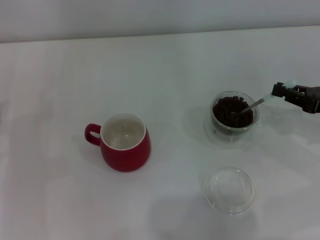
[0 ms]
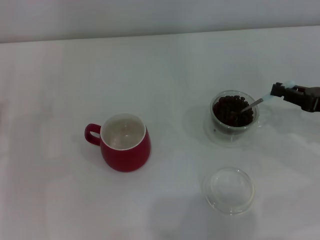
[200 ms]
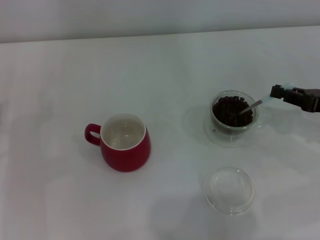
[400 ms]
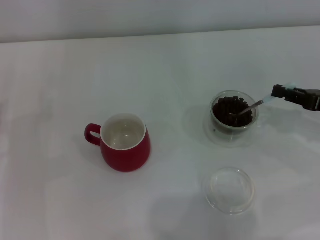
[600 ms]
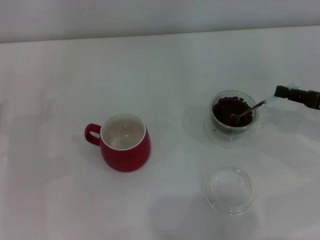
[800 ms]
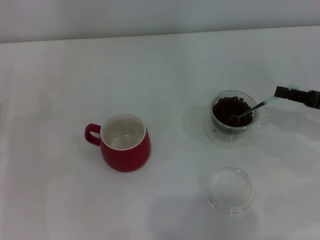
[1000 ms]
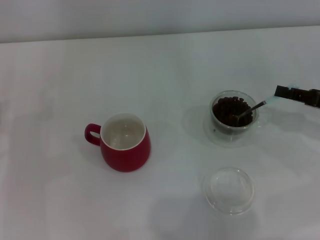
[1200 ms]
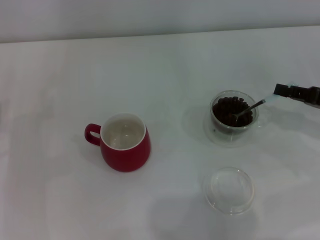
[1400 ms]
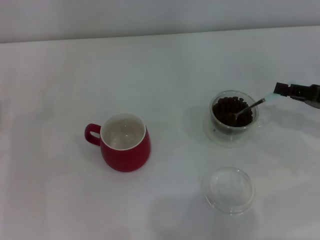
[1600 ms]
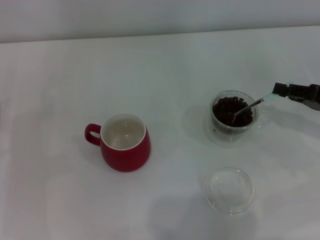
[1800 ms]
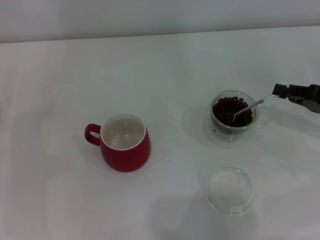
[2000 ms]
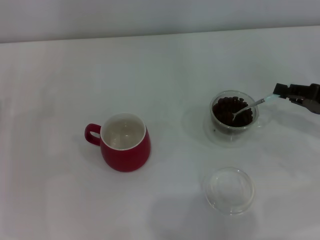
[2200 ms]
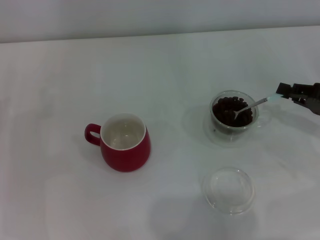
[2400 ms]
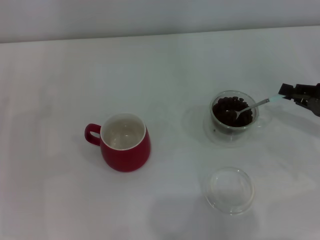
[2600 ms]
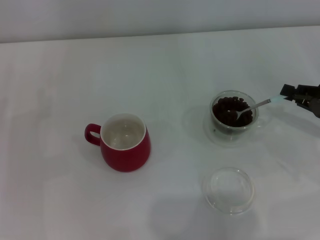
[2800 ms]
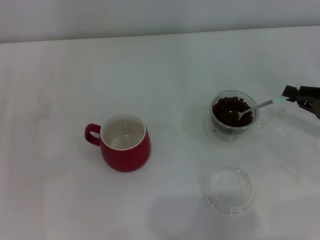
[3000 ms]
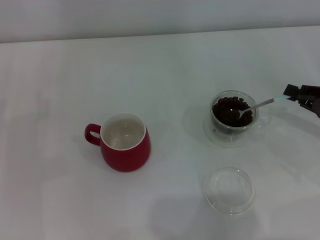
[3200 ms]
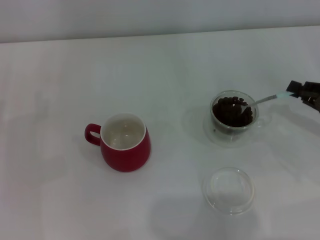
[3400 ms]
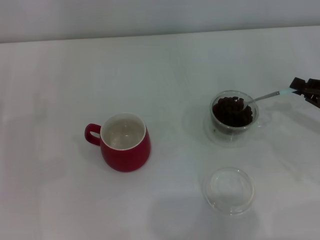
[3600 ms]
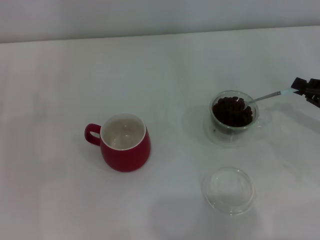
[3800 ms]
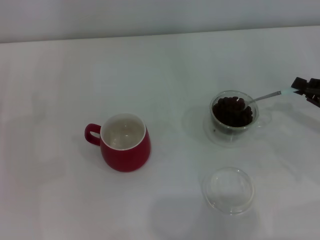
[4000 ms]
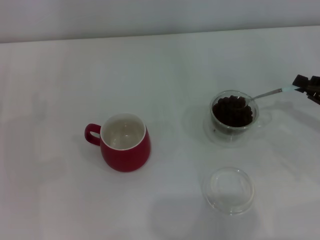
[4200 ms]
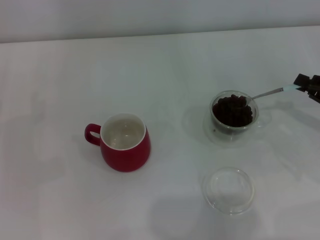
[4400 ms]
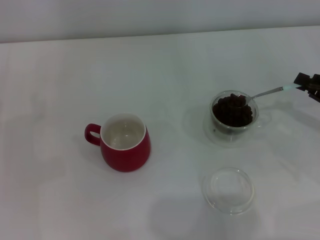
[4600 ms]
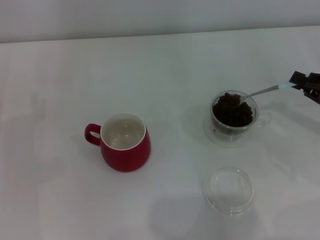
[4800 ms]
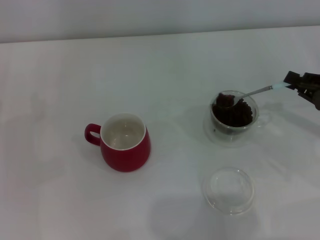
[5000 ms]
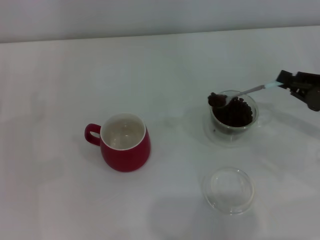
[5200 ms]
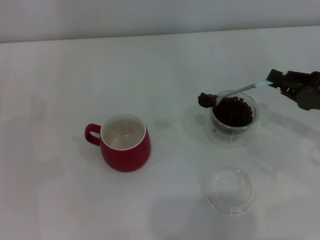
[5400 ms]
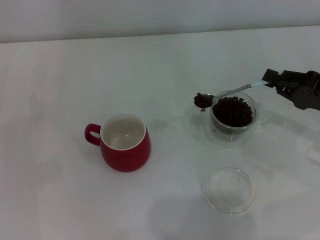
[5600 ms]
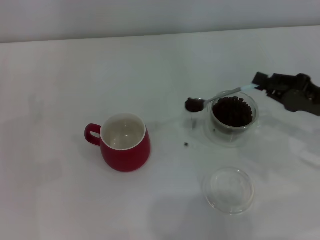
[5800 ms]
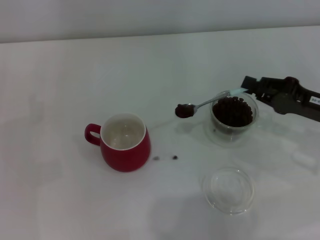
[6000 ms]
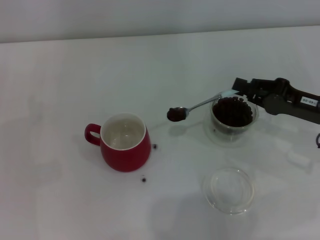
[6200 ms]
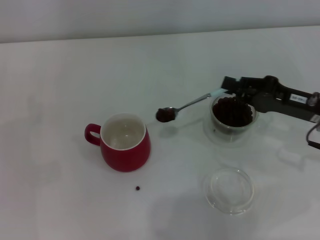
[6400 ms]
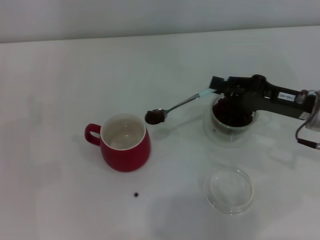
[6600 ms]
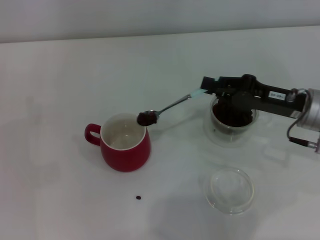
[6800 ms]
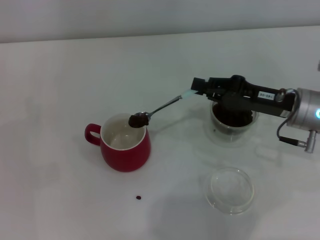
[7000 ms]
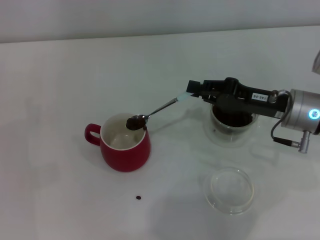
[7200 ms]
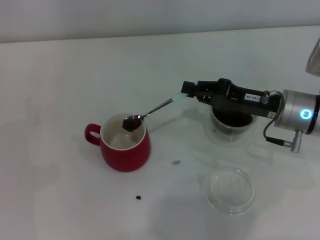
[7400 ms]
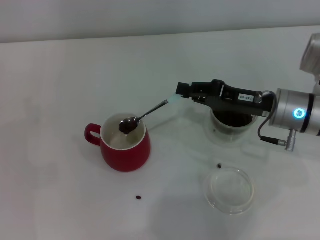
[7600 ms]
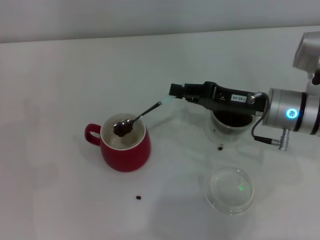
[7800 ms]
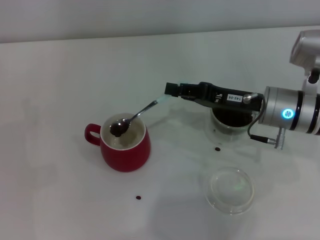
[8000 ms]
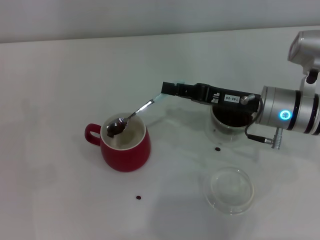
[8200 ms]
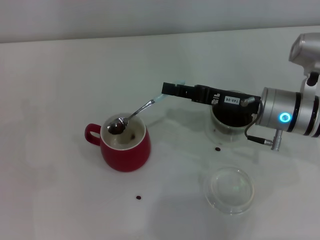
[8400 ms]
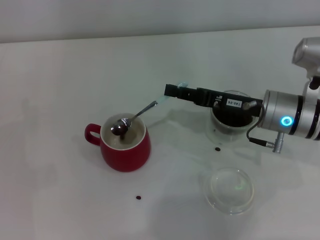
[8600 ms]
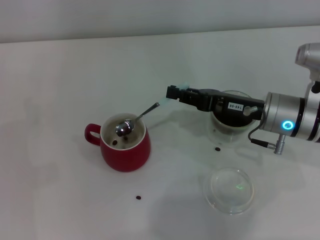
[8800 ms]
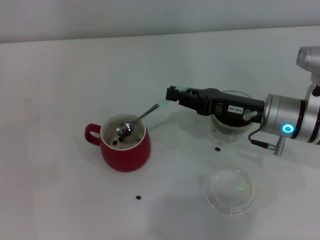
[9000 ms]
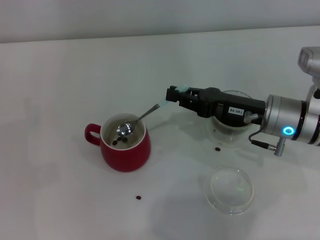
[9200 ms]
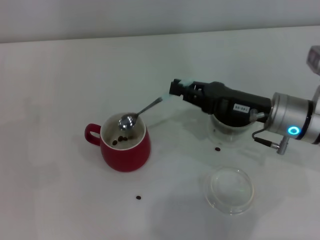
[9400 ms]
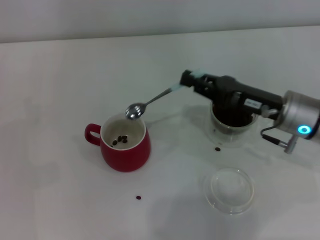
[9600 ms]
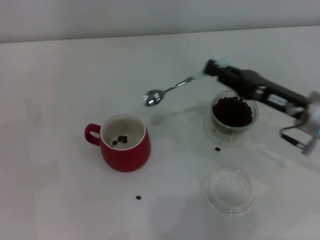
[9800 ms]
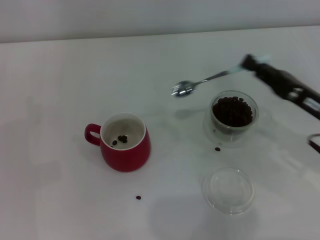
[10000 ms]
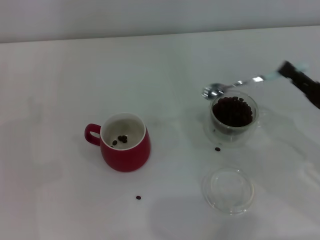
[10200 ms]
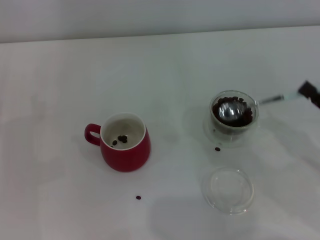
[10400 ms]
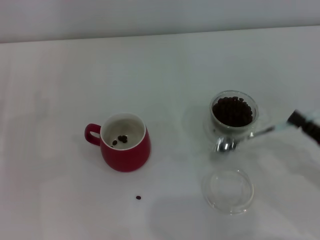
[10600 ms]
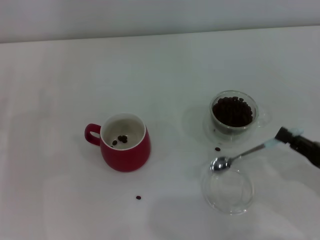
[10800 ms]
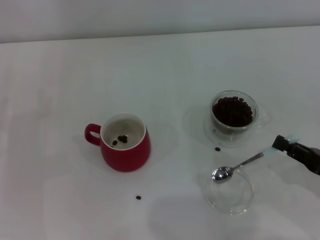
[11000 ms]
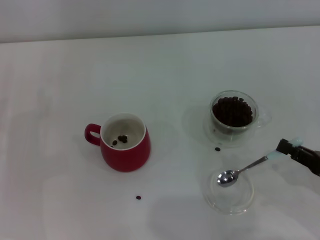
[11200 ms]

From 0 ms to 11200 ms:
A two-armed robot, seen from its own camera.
Task of the whole recording: Use a blue spoon to take out the coffee beans from the glass and pour them into the red cup.
Step, from 0 ms to 9600 ms: Scoop a spoonful of beans into the cup with the right gripper.
From 3200 ms to 4800 ms: There are only small adjustments of the grippers.
From 4800 ms to 6400 ms: The right gripper is displaced to the left by some 10 cm.
From 6400 ms to 8000 ms: The right gripper is displaced to the left by approximately 5 cm.
From 9600 ms to 11200 ms: The right gripper shifts some 15 cm backward and to the right.

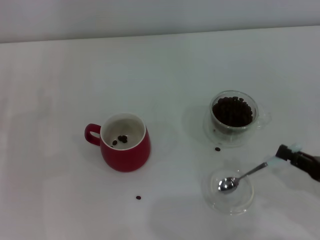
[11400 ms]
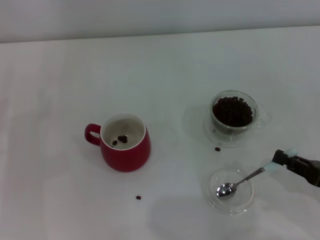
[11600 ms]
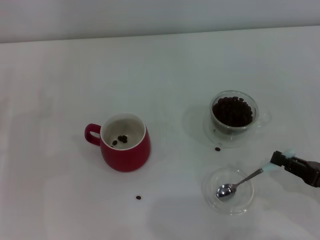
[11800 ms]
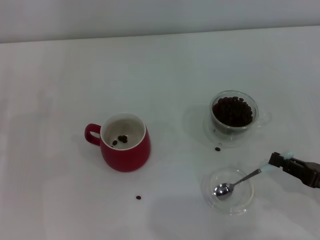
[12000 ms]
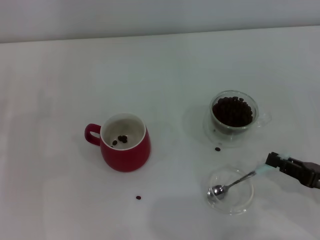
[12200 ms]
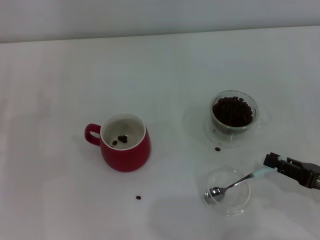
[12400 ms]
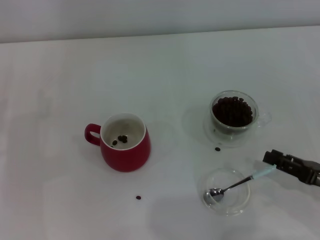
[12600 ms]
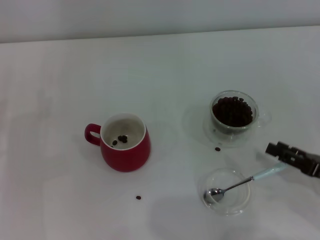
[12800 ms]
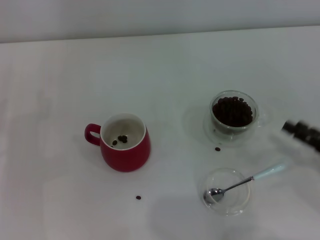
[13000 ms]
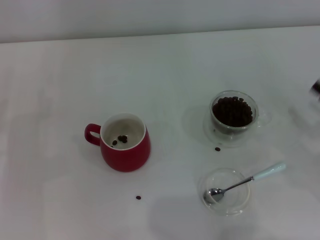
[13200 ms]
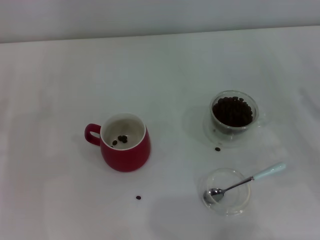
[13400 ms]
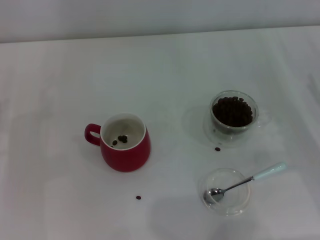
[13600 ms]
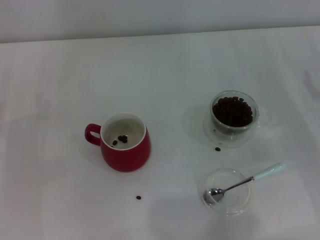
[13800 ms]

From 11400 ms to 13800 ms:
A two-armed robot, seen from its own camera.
Task of the whole recording: Use a blue spoon to take out the coffee beans from the glass and pour them into the red cup.
From 11400 ms to 12600 ms: There are only small adjustments of the grippers.
From 12600 ms to 13800 ms: The right gripper travels forward by some 10 cm, and opens.

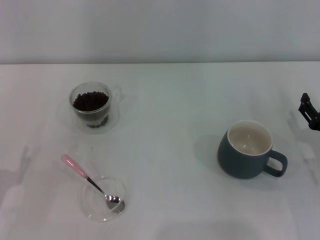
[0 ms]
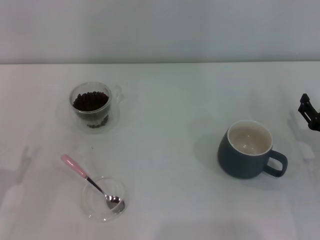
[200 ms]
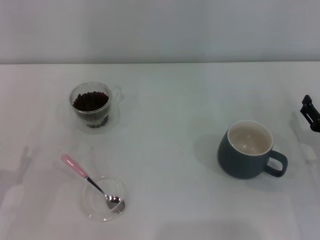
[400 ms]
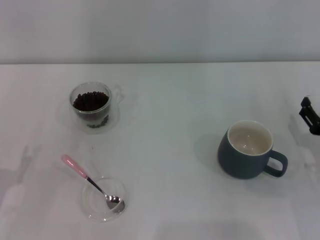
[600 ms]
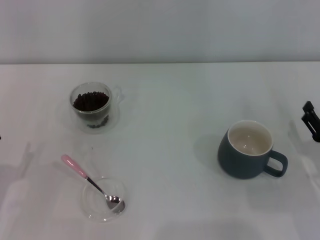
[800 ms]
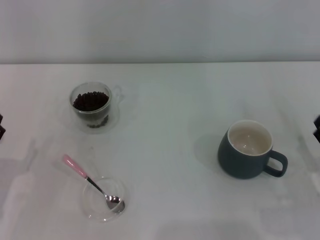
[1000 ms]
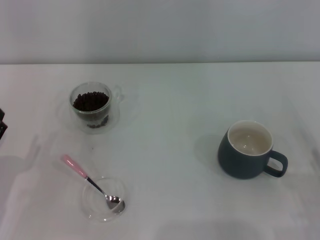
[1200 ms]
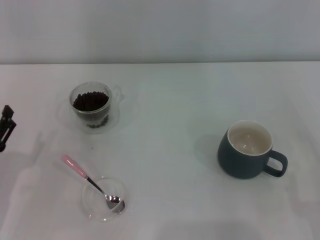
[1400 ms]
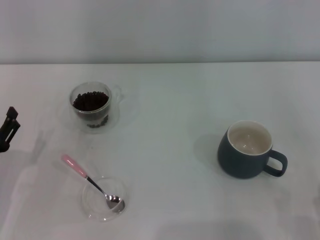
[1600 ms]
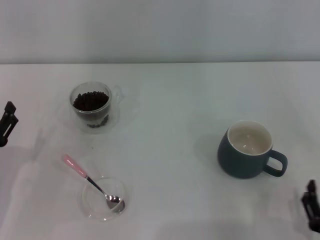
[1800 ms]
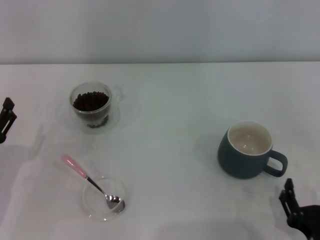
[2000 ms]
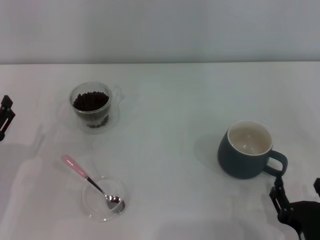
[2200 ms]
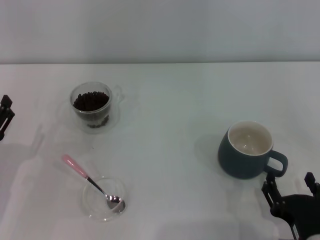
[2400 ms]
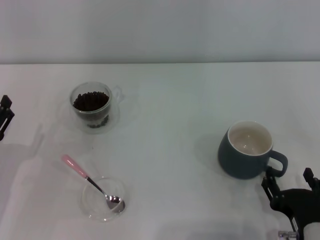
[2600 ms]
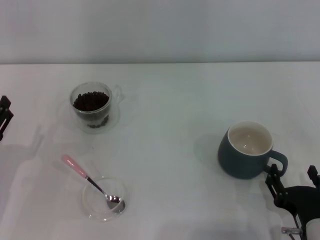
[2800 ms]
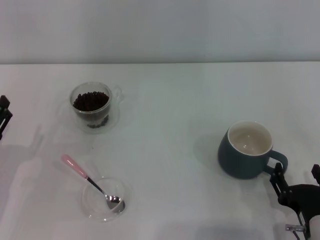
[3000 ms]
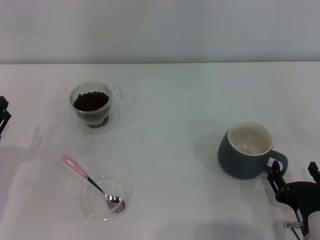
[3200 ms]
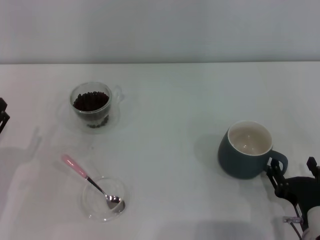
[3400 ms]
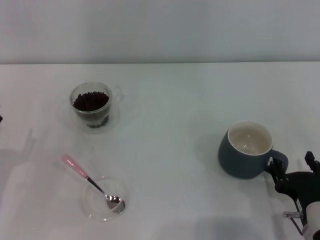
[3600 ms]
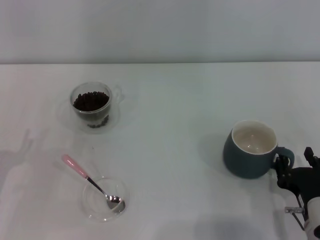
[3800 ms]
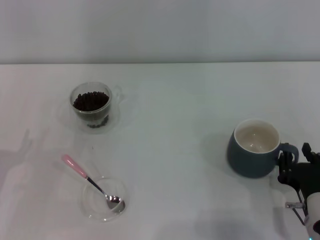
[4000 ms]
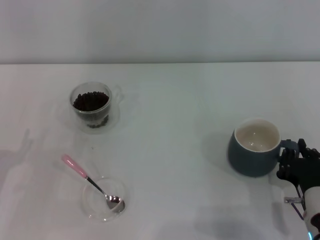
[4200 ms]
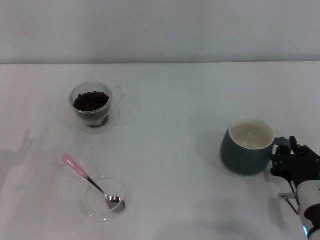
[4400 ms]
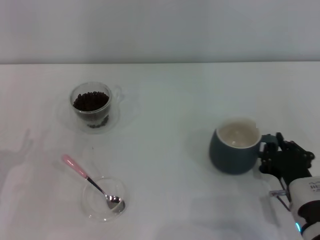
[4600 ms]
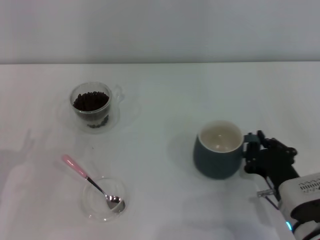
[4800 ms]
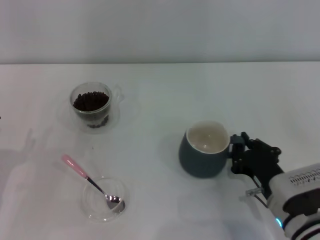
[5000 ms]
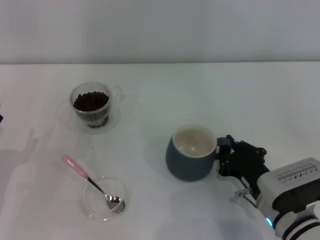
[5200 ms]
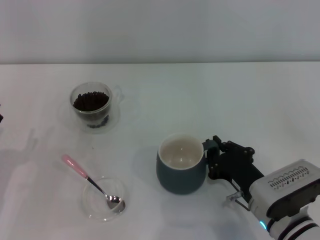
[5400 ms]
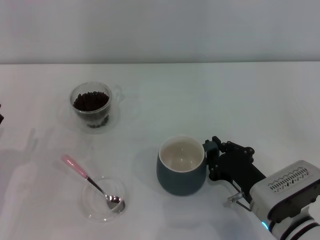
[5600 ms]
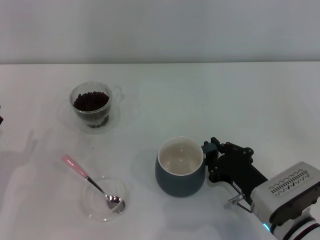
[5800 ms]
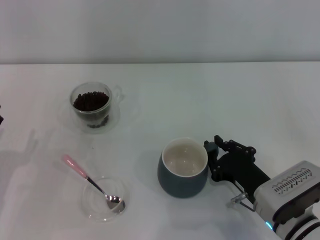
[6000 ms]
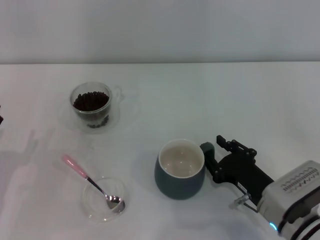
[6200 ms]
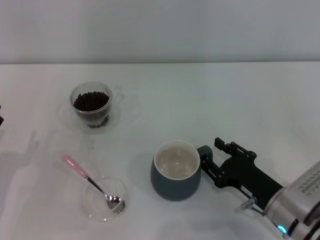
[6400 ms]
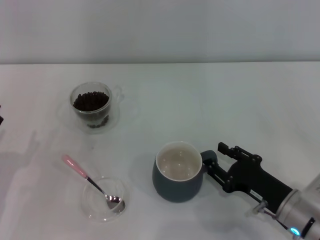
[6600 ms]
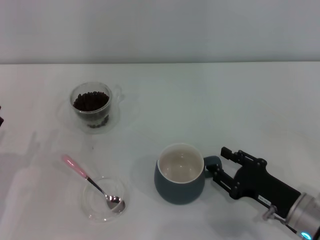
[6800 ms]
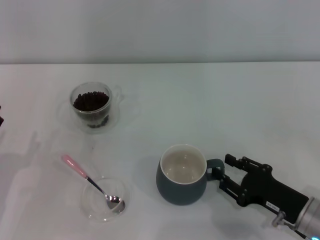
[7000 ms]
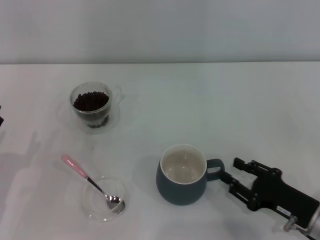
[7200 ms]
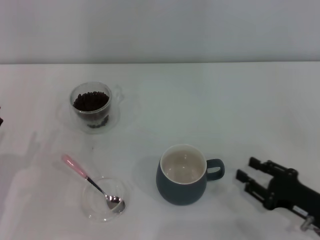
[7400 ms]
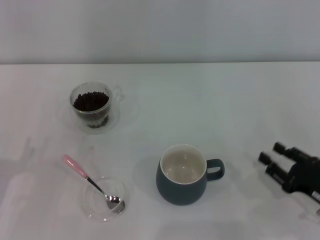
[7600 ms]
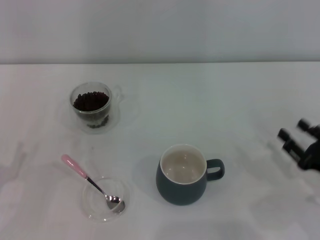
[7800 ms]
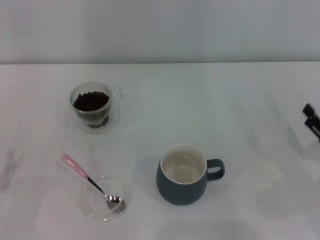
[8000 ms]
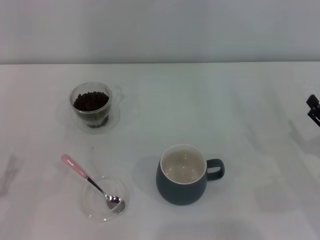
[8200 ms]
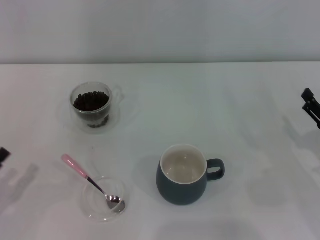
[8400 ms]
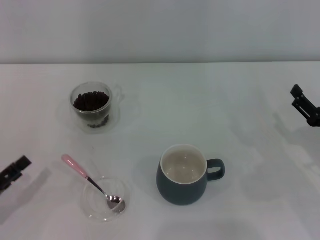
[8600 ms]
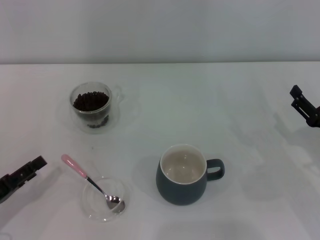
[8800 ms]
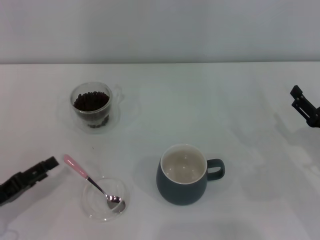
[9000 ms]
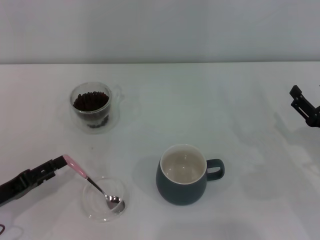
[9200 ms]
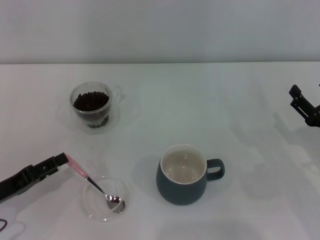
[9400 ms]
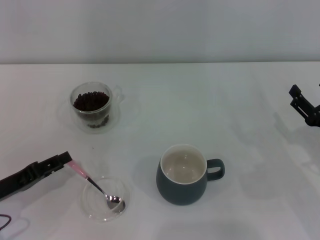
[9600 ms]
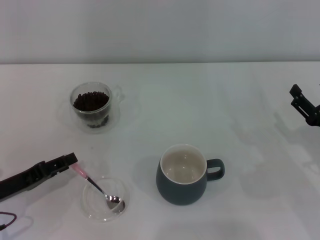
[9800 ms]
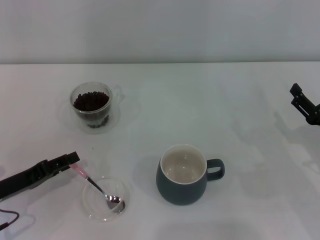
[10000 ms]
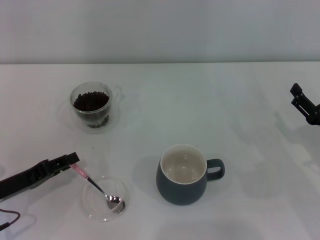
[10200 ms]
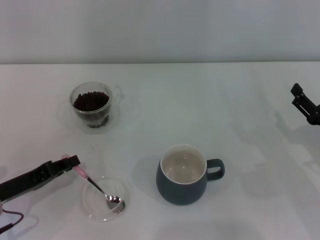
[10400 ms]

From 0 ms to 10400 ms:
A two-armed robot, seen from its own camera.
Task of the whole recording: Use a pink spoon to take out the coffee beans from the glass and pour them into the gray cup.
Step, from 0 ms to 7200 ms: Move the cup to the center of view with the left gripper.
From 0 ms to 1400 ms: The right gripper goes about 15 cm backward.
From 1400 ms to 3000 ms: The right gripper goes approximately 10 cm to the left.
From 3000 ms to 4400 ms: The right gripper goes approximately 5 cm forward, and closes up.
From 6000 ms to 7400 ms: The right gripper travels to the right by about 10 cm, and opens its fingers.
From 7400 ms to 9000 ms: The right gripper moves forward, approximately 5 cm, and opens up.
From 9000 ms to 10400 ms: The left gripper closes.
